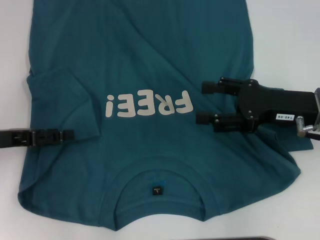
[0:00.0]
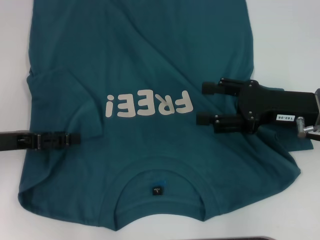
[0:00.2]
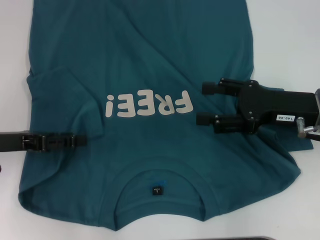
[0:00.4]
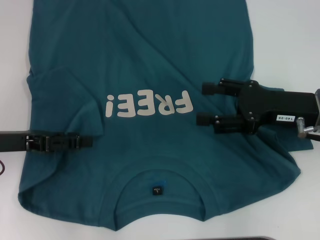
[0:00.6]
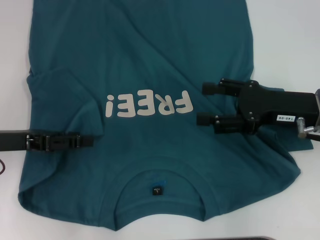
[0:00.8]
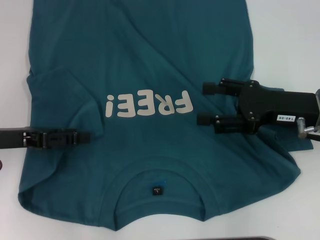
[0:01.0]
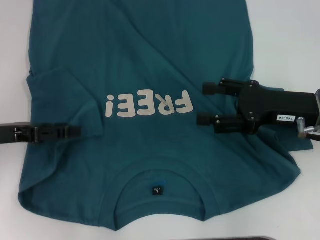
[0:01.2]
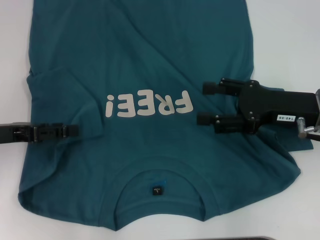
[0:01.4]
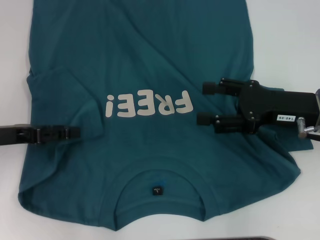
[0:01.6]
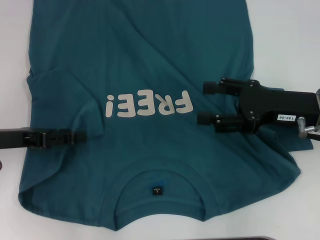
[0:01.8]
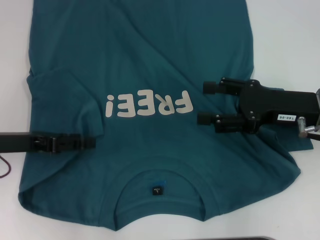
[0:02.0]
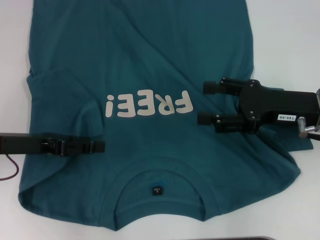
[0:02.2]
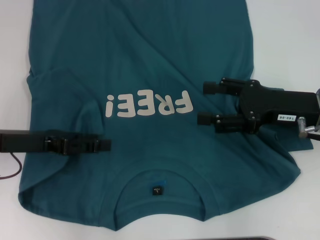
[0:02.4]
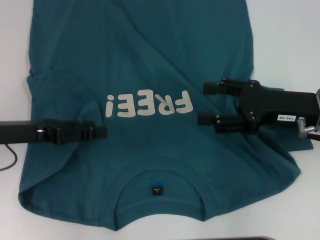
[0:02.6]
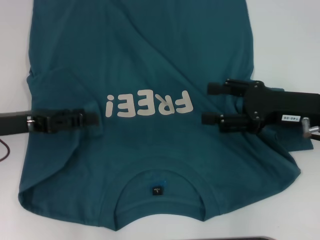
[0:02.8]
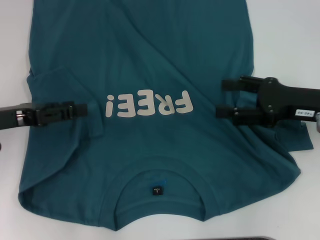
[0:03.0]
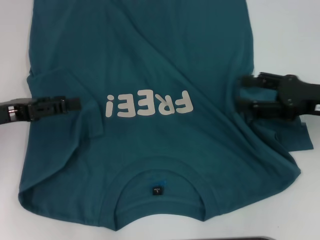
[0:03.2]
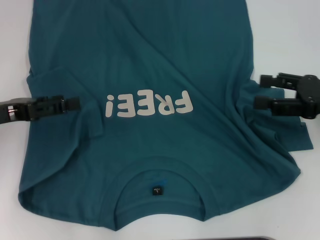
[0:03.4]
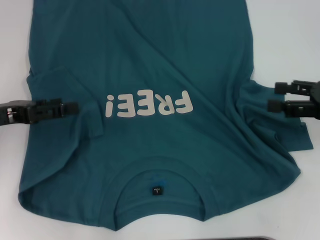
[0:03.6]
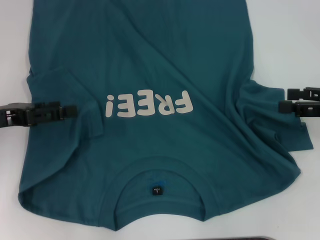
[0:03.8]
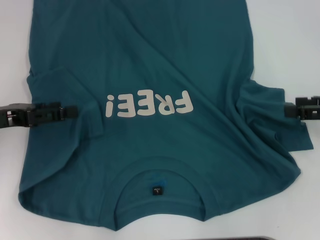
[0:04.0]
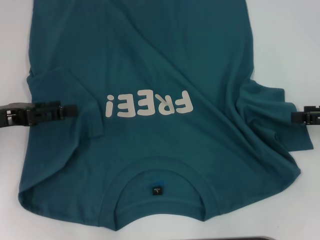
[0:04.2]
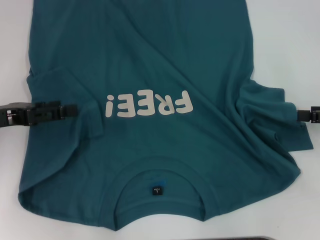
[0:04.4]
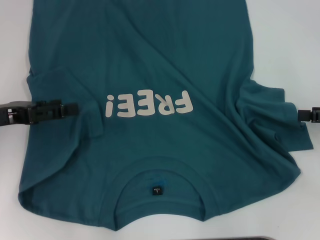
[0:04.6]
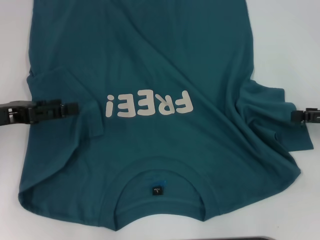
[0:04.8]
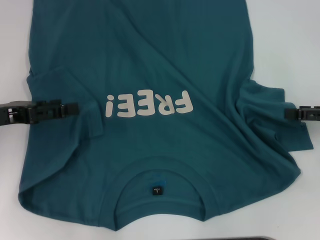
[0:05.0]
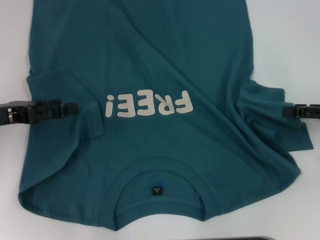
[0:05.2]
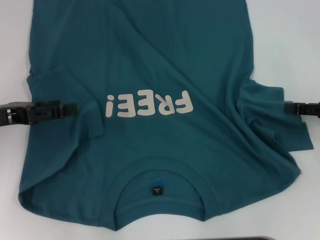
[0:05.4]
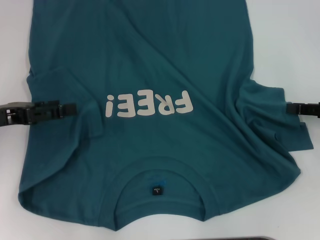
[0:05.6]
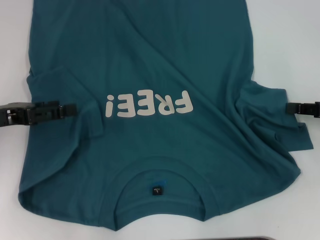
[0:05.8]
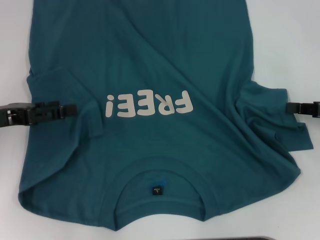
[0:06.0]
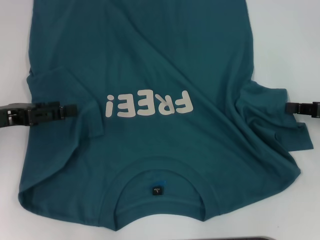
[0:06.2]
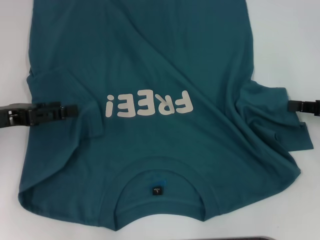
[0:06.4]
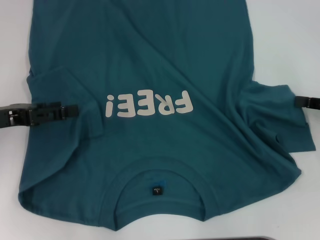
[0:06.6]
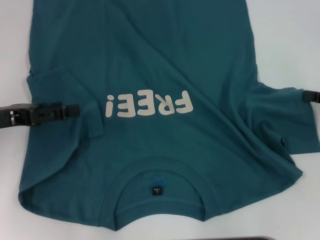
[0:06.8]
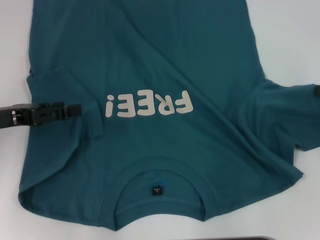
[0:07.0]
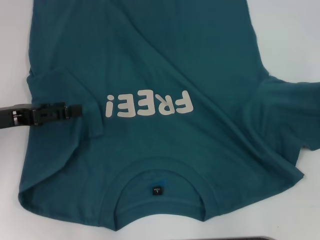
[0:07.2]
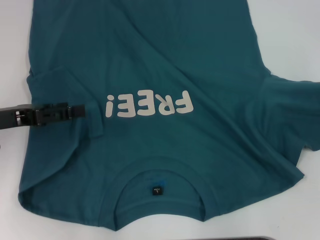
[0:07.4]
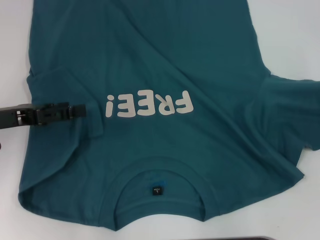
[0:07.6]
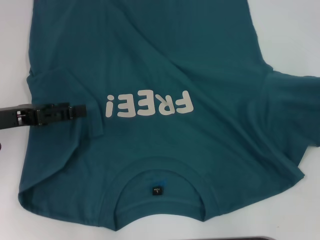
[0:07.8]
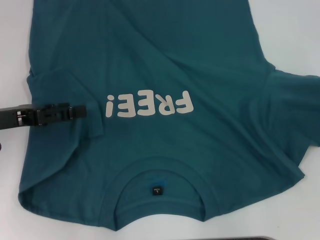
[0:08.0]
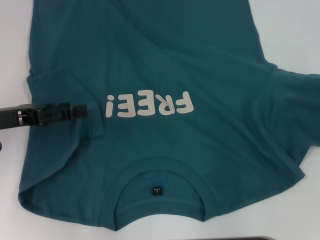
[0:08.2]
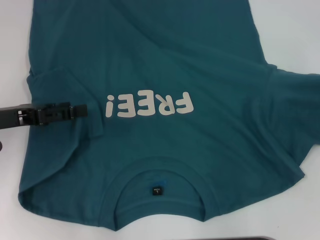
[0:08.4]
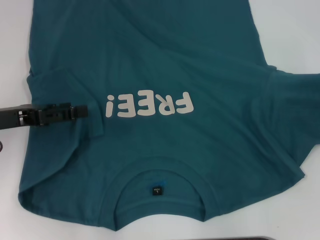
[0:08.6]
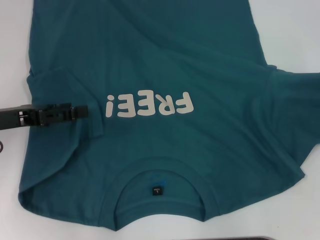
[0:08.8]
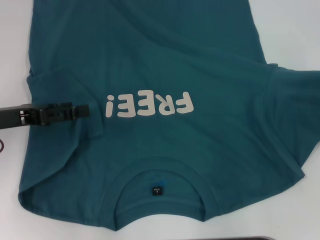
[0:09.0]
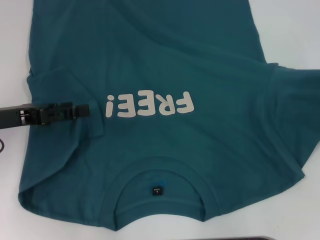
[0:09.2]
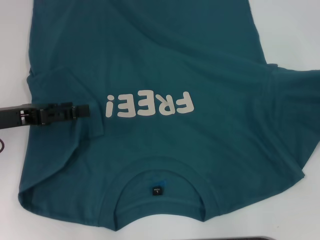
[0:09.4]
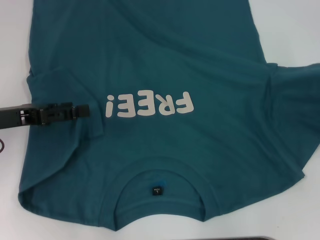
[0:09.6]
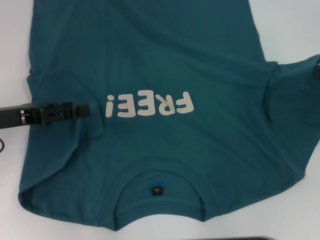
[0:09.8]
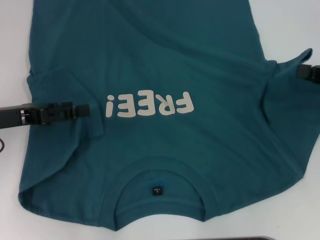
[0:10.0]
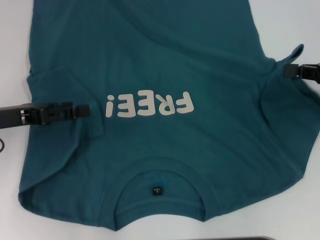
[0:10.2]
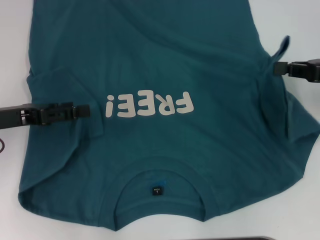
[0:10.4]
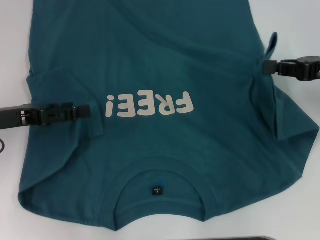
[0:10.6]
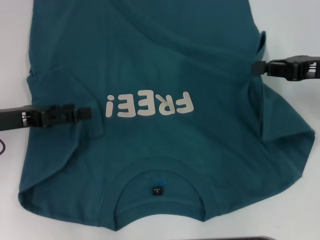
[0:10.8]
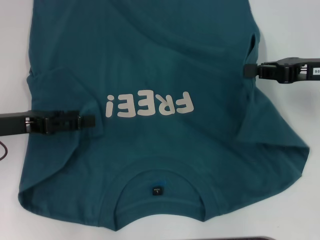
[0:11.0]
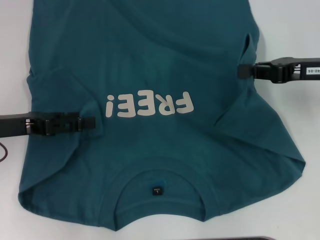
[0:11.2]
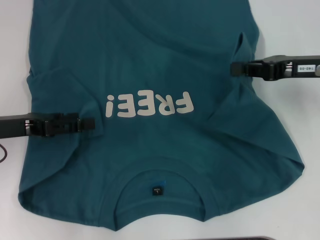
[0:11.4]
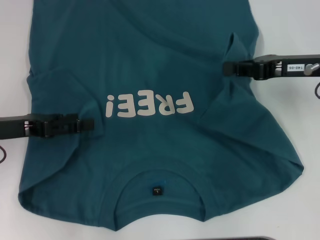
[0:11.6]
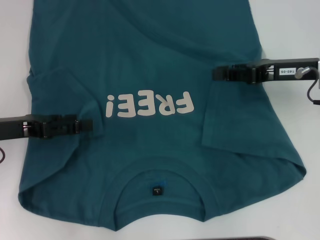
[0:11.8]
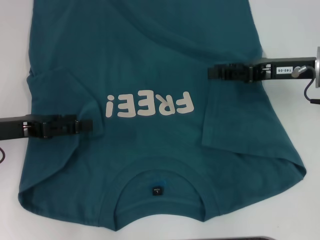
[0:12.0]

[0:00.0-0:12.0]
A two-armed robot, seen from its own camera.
0:00.0 to 0:03.0: The grippers move only a little.
0:03.0 to 0:04.4: The right gripper heads to the right, covering about 10 cm.
0:04.4 to 0:06.0: The right gripper closes its fingers.
0:06.0 to 0:07.6: The right gripper moves some 5 cm.
0:07.6 to 0:09.0: There are only small adjustments of the grippers.
0:09.0 to 0:10.4: The right gripper shifts about 10 cm to the left.
0:10.4 to 0:12.0: The right gripper moves to the left, some 10 cm.

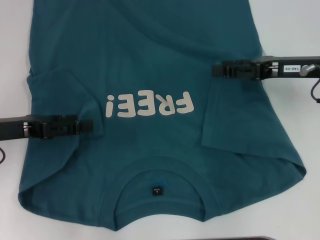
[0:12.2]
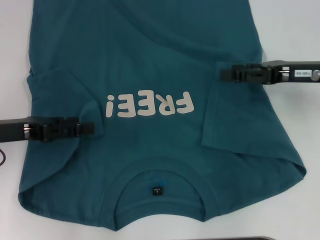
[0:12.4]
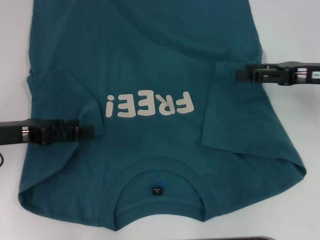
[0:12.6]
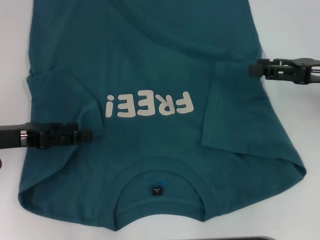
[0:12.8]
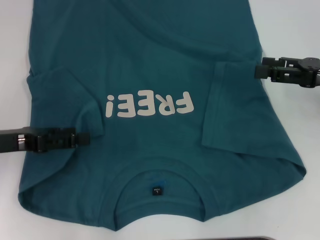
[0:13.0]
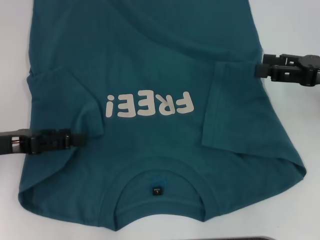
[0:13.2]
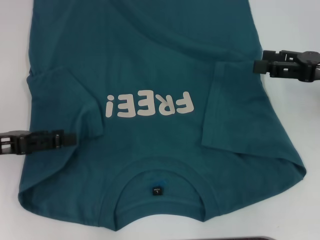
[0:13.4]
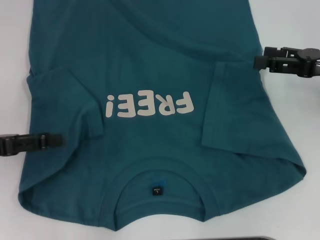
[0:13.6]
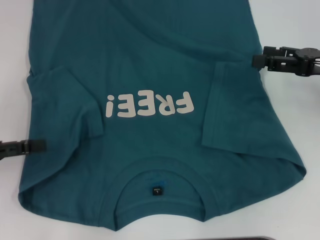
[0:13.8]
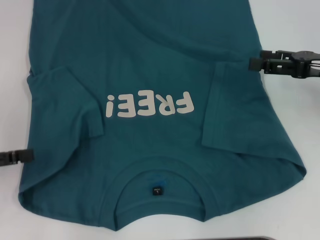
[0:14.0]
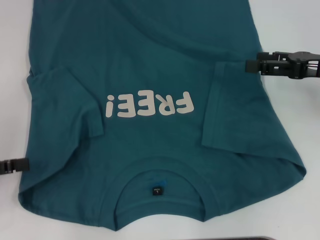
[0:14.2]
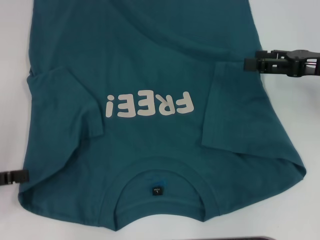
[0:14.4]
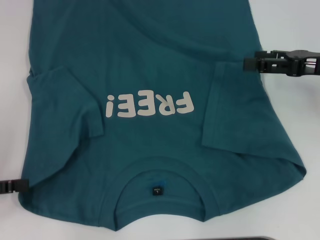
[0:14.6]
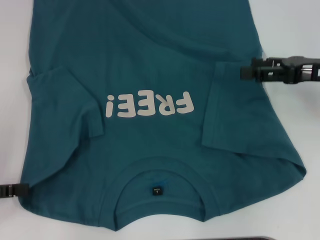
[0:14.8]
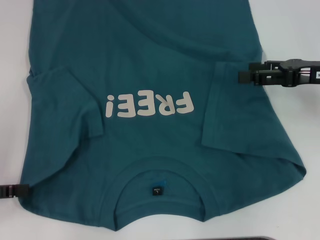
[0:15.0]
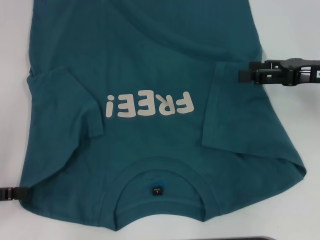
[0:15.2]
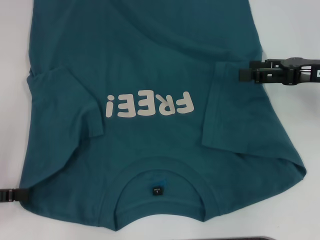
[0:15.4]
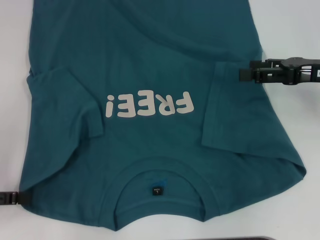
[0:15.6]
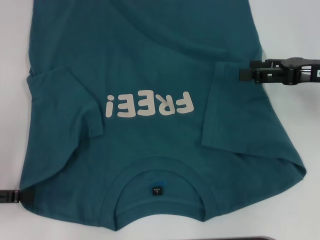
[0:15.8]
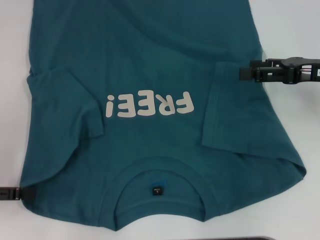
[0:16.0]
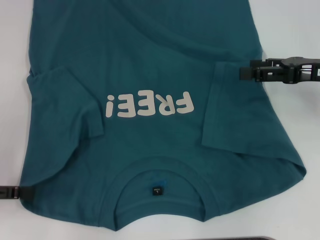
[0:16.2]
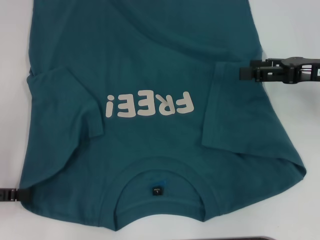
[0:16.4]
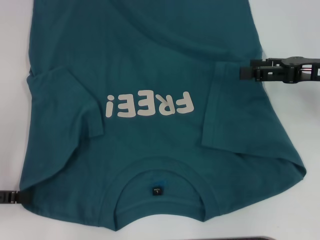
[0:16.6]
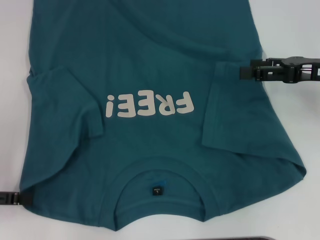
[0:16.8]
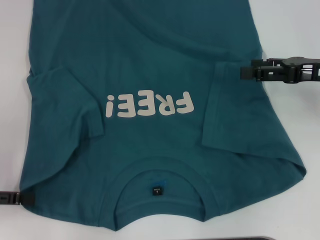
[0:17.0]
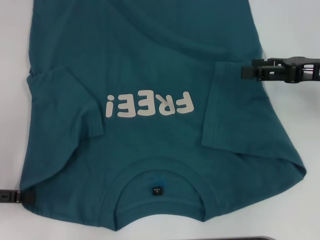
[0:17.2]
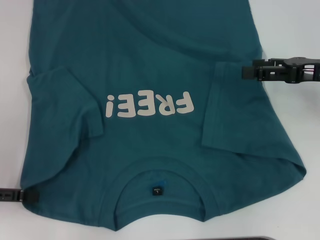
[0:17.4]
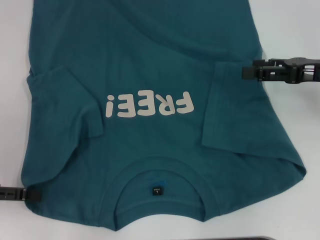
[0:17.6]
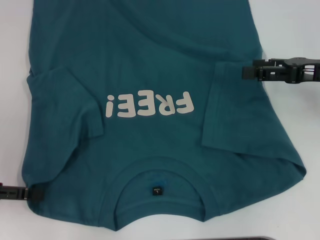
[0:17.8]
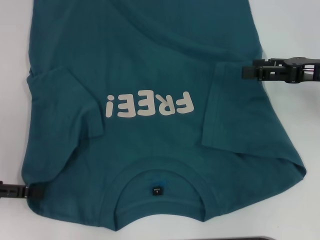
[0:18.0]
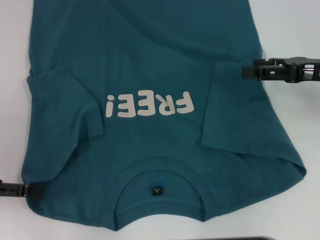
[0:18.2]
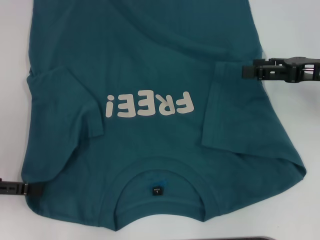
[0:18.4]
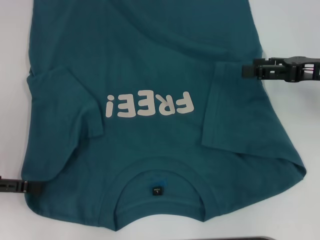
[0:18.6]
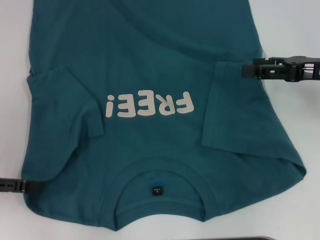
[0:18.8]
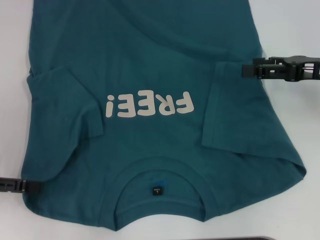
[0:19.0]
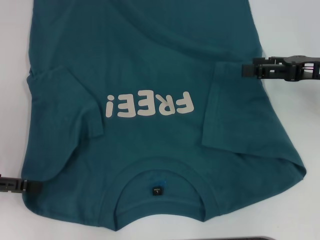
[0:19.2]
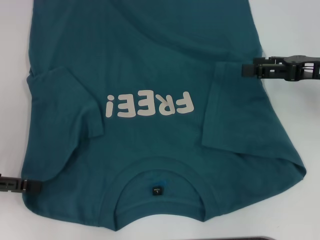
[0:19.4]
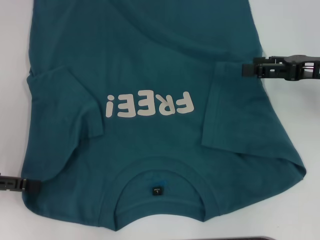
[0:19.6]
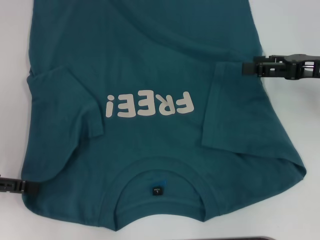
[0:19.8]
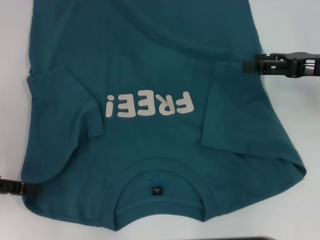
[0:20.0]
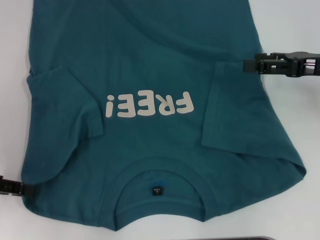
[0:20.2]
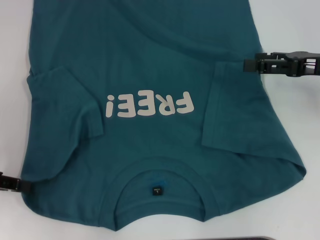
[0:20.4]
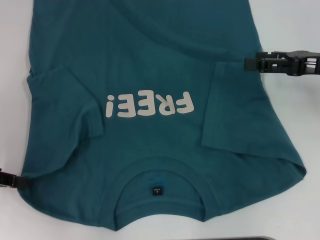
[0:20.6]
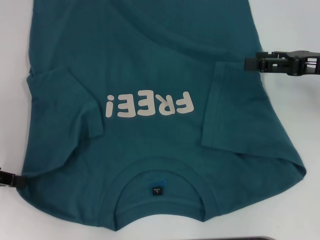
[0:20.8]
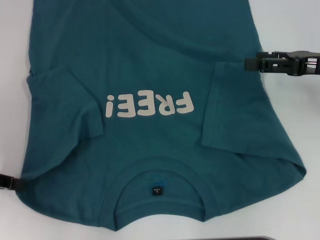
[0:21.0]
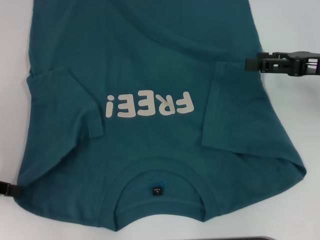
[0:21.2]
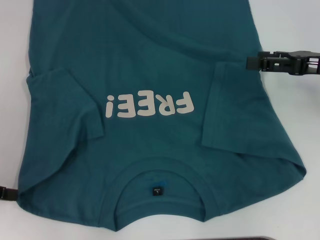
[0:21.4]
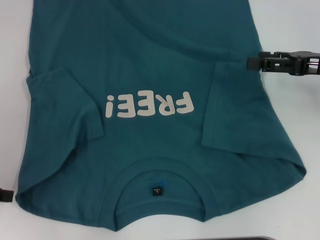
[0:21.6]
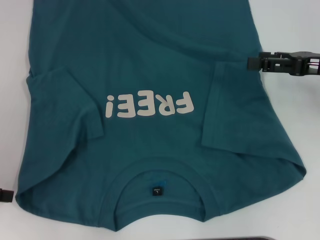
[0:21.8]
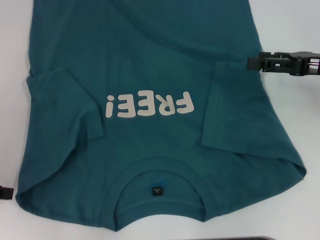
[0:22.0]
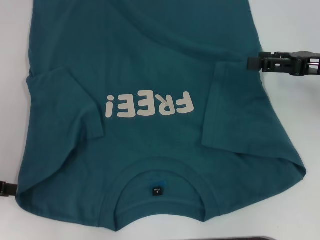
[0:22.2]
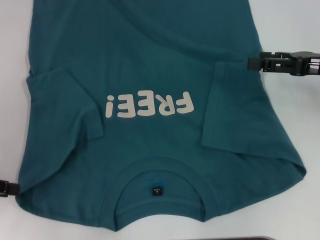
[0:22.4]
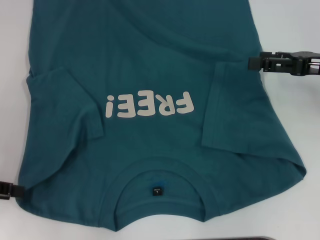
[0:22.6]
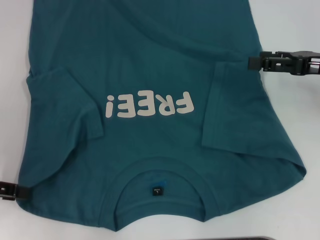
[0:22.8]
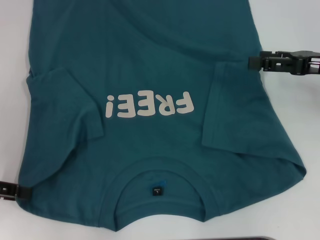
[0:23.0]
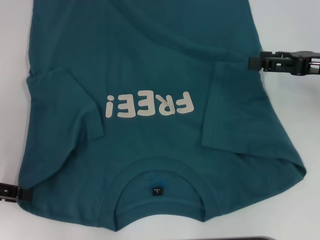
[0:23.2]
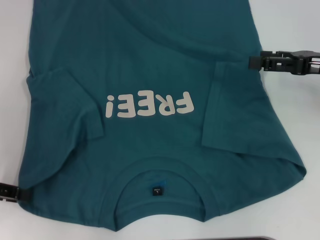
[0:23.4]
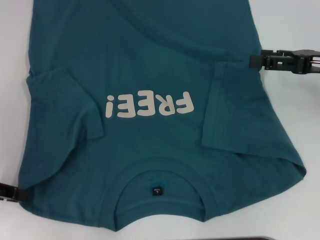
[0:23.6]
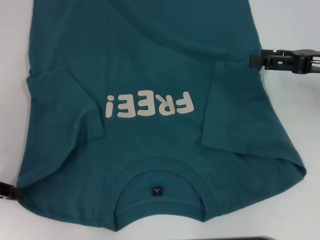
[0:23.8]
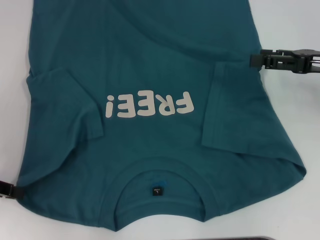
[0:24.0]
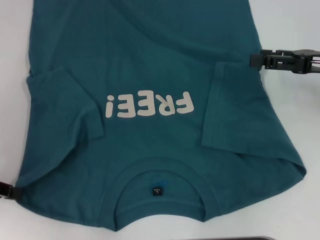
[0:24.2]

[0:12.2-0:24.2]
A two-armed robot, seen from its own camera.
0:12.2 to 0:13.8: The left gripper goes about 5 cm to the left. Meanwhile the right gripper is displaced to the right by about 5 cm, and opens up.
0:13.8 to 0:18.2: There are only small adjustments of the grippers.
0:18.2 to 0:19.8: Neither gripper changes place.
0:19.8 to 0:21.2: The left gripper closes up.
0:21.2 to 0:22.6: The two grippers keep their place.
0:22.6 to 0:24.2: The grippers make only small movements.
